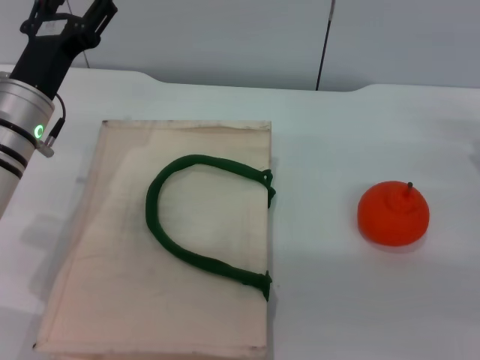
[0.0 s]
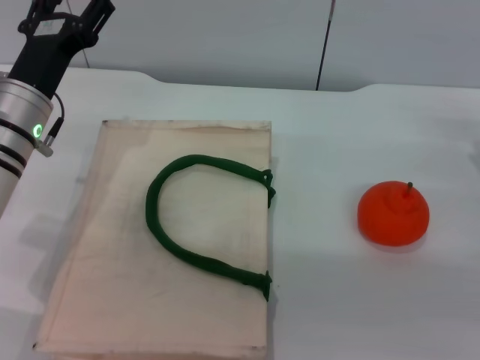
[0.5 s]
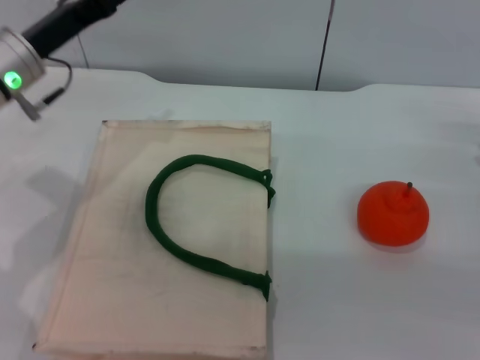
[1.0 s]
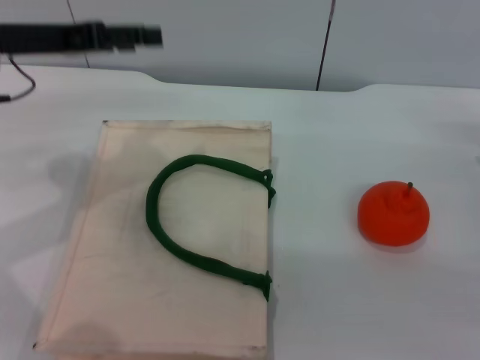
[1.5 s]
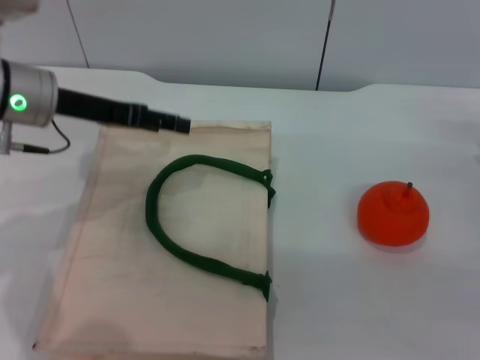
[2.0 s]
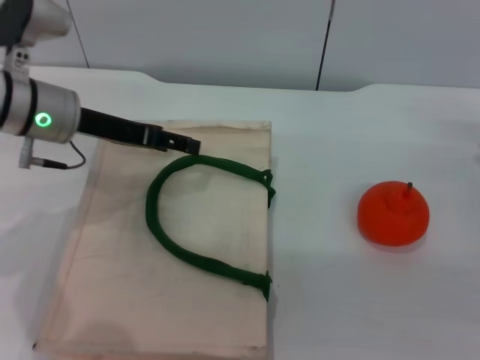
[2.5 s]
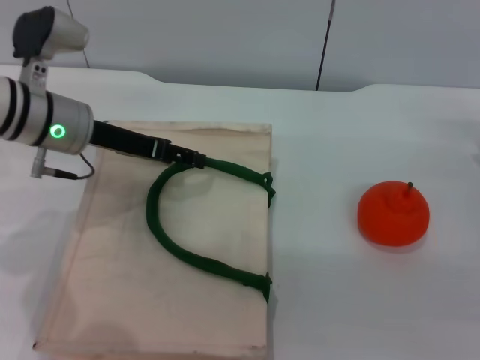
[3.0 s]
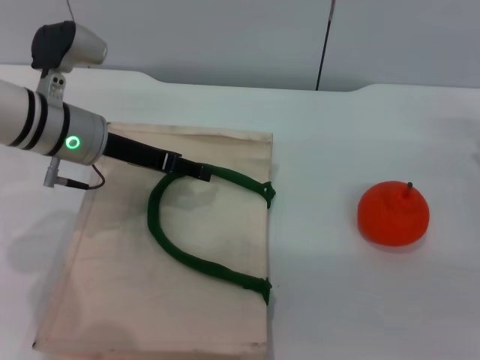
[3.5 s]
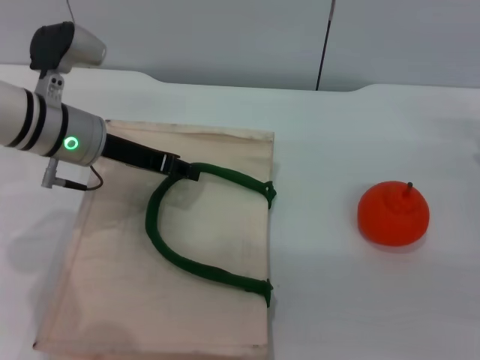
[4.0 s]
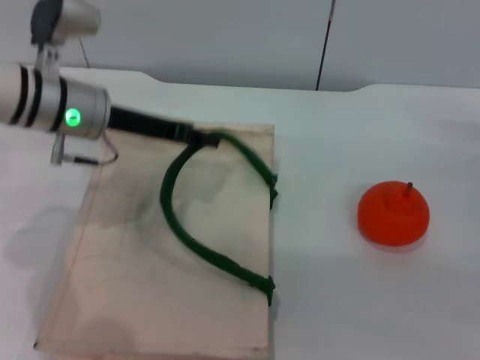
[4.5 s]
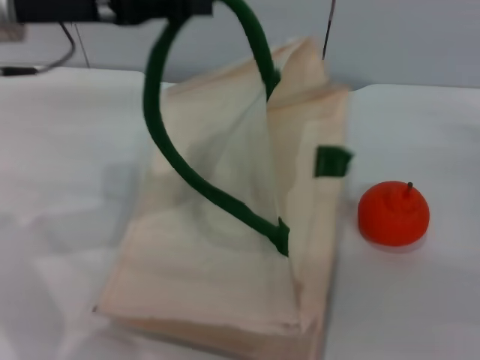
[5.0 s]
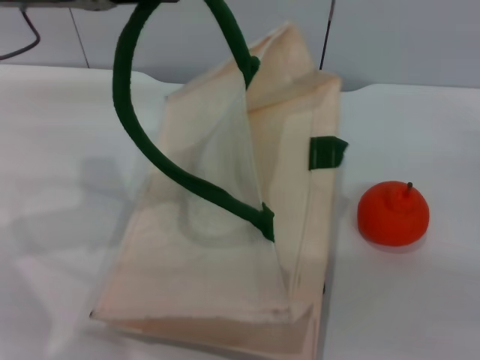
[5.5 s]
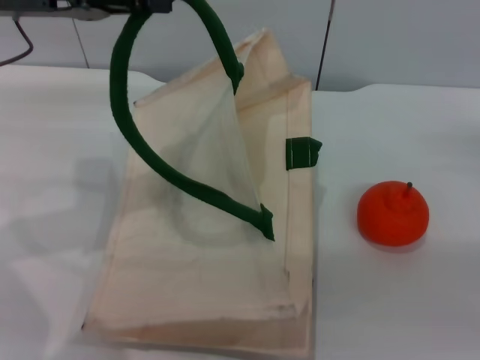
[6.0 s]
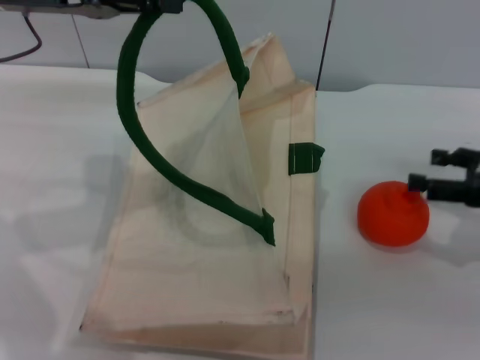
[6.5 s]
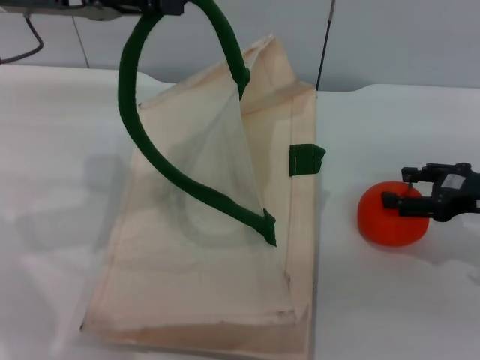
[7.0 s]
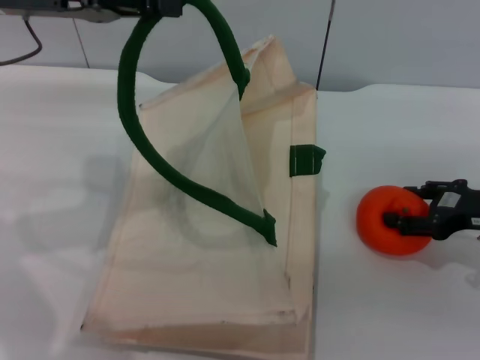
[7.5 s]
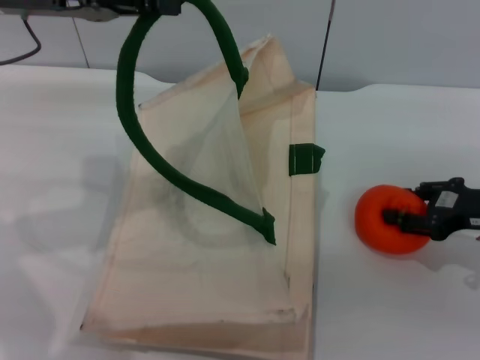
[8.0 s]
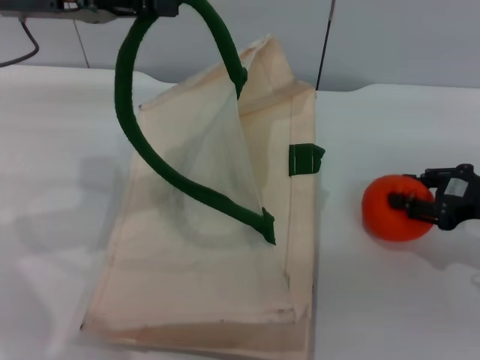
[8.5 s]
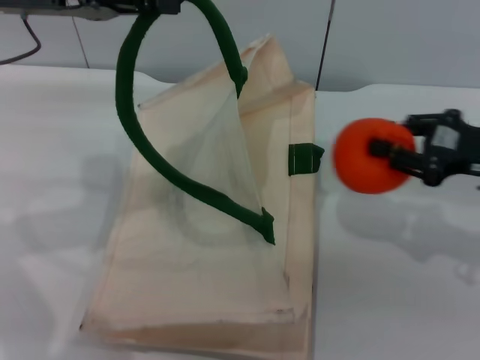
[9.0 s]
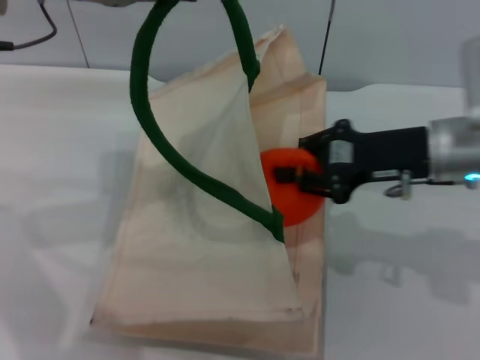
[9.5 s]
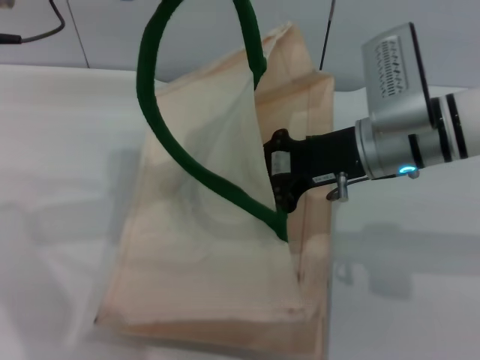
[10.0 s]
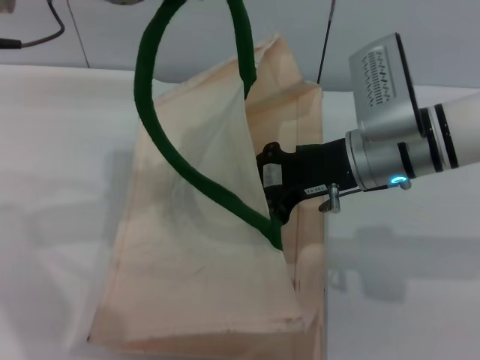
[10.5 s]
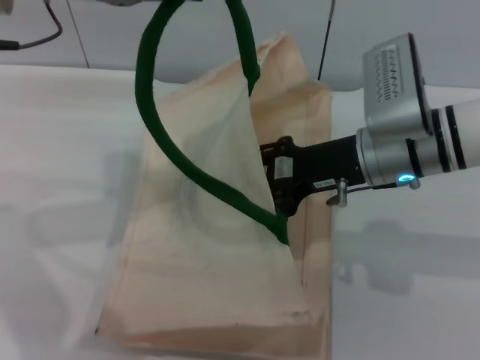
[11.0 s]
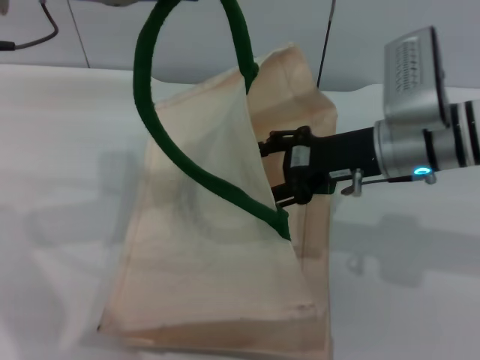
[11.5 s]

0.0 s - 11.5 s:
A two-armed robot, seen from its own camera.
Task of the whole recording: pick up the orange from the table and place it in the white handbag.
Step, 0.0 s - 5.0 s: Lift the woven bag with the left gripper to open it.
Step, 5.5 s - 8.5 s: Pick up the orange with the right gripper.
0.0 s - 2.0 s: The left gripper is displaced upward by roughly 5 cm.
2.0 s - 4.0 s: The left gripper shifts by roughly 5 cm, and closes its fingers.
4.0 s - 6.0 s: The right gripper shifts approximately 10 cm to the right and upward; the left gripper goes roughly 15 cm upward and to the left, and closes its fingers.
6.0 s - 7.5 s: The right gripper is displaced to the left by approximately 10 cm.
7.5 s - 9.5 s: The right gripper travels to the left and upward by roughly 15 cm, and closes its fingers.
9.5 s - 11.5 s: The right gripper opens its fingers.

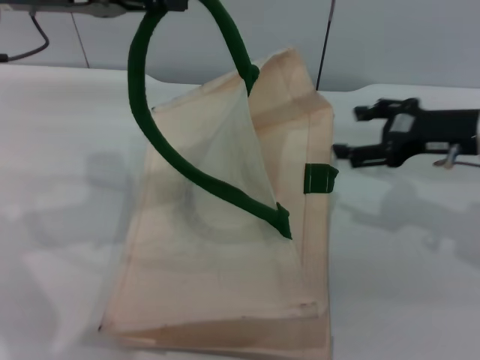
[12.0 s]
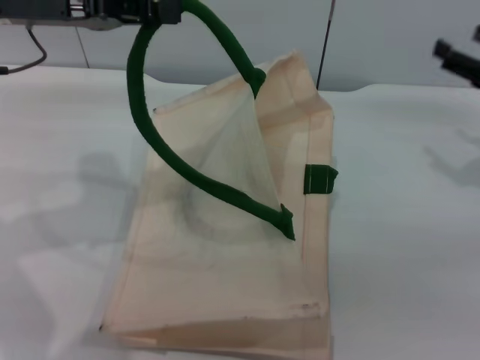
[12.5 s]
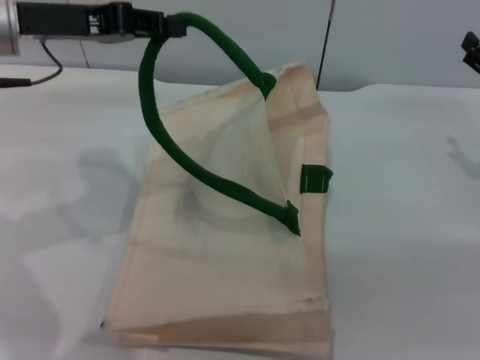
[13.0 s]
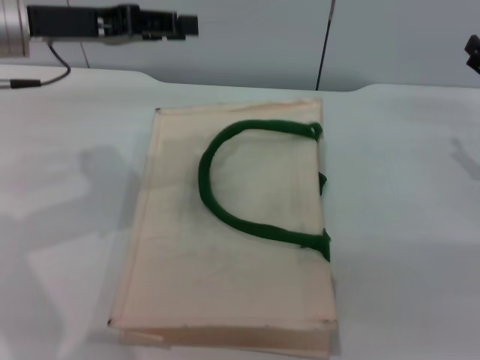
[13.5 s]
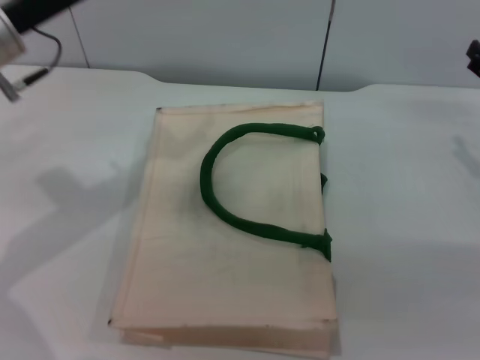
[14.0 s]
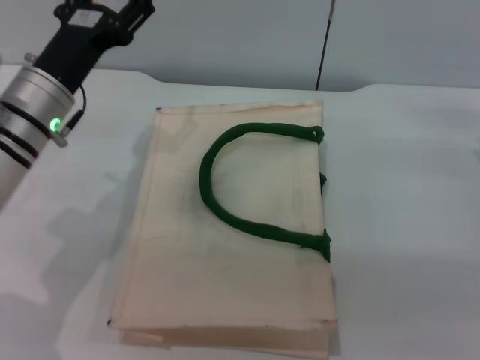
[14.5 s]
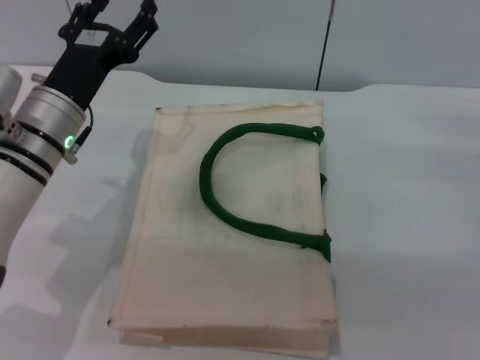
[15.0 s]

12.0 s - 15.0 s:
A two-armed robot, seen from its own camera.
Task of the whole recording: pick up the orange from the table and place it in the white handbag.
Step, 12.5 s - 13.5 s: Lower the woven bag with the left gripper to close it.
12.0 s - 13.5 s: The right gripper heads to the right, covering about 5 cm.
13.5 s - 15.0 s: The left gripper travels downward by approximately 15 cm, and opens up.
